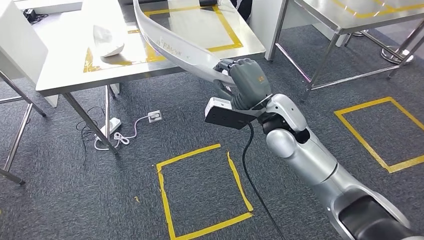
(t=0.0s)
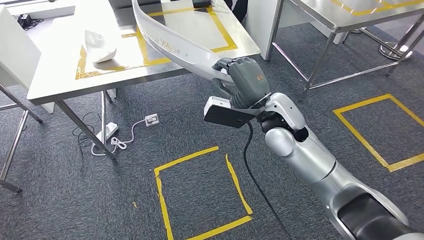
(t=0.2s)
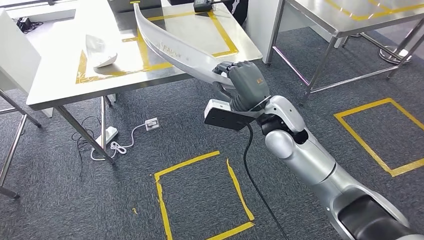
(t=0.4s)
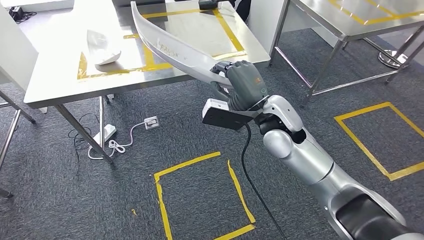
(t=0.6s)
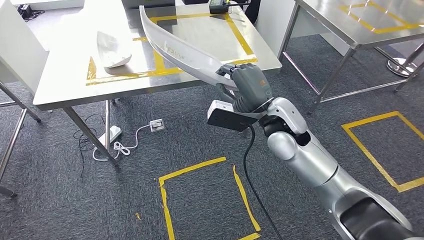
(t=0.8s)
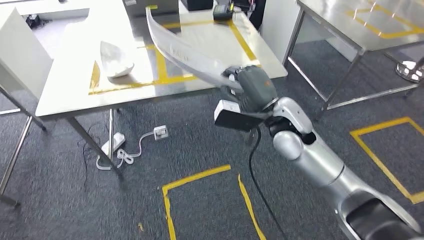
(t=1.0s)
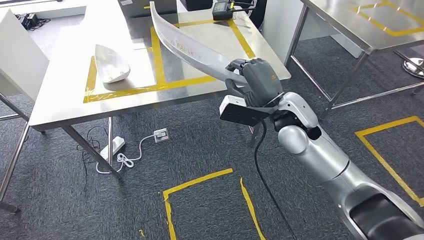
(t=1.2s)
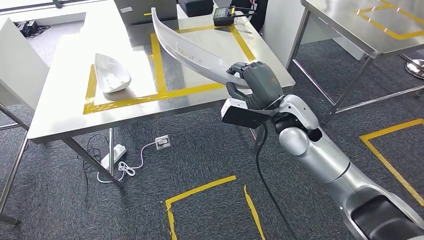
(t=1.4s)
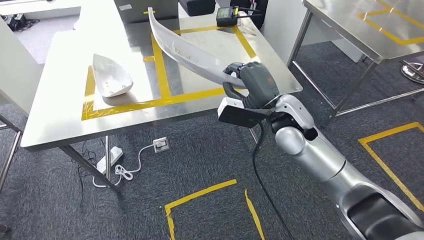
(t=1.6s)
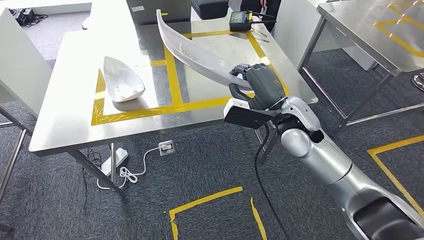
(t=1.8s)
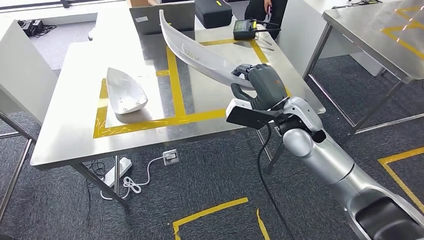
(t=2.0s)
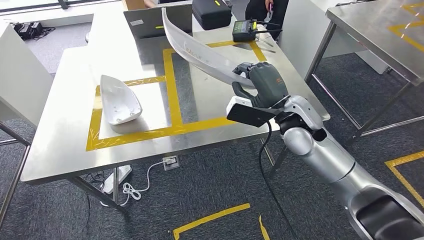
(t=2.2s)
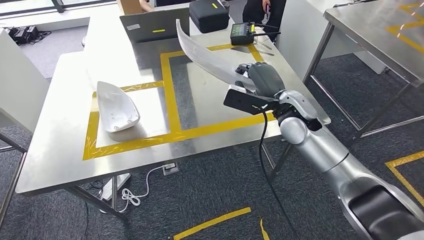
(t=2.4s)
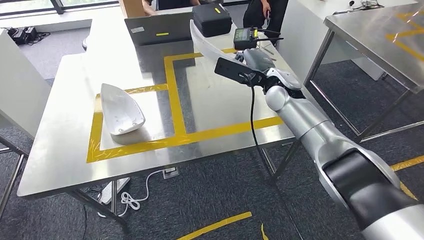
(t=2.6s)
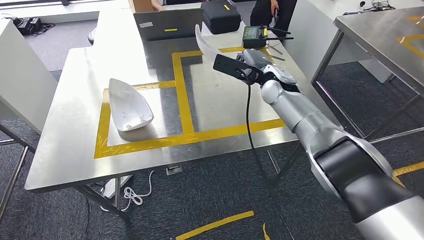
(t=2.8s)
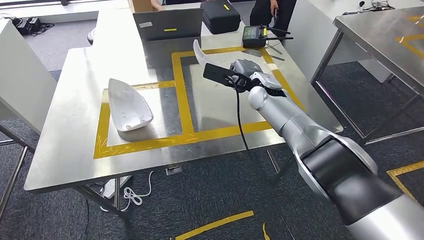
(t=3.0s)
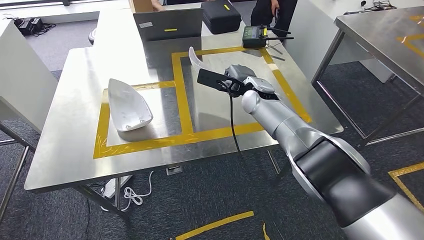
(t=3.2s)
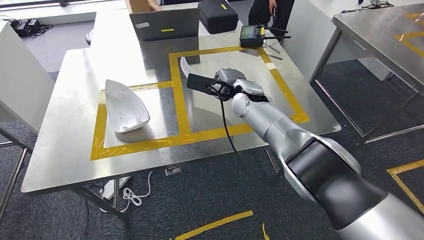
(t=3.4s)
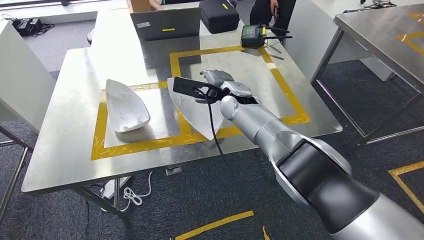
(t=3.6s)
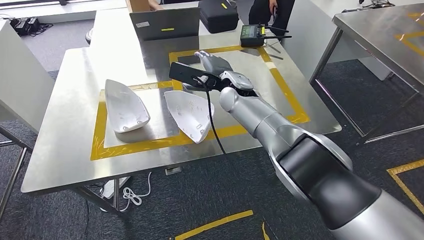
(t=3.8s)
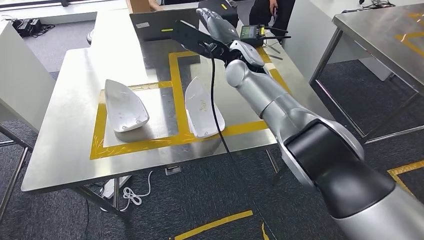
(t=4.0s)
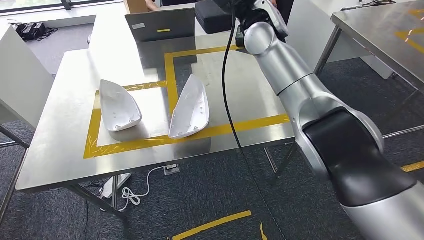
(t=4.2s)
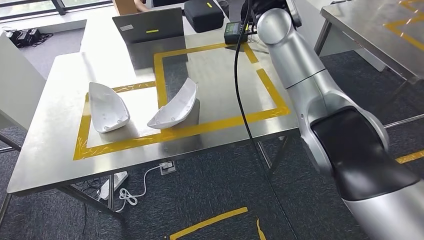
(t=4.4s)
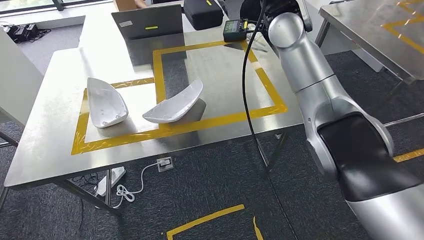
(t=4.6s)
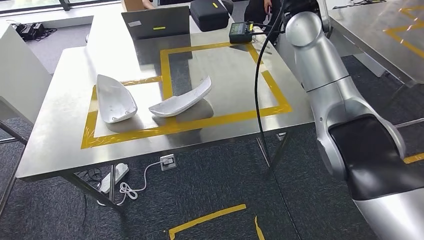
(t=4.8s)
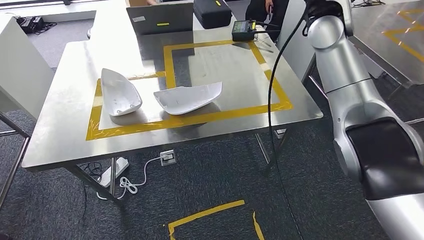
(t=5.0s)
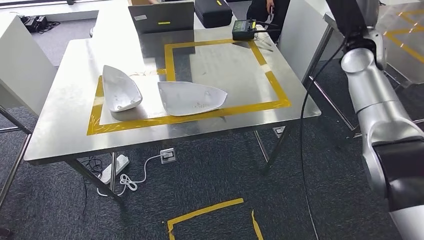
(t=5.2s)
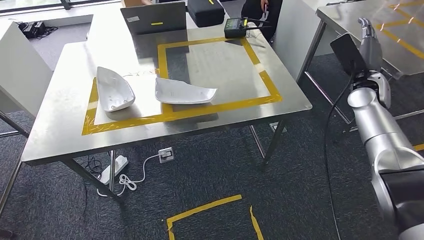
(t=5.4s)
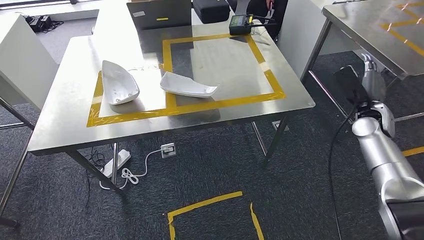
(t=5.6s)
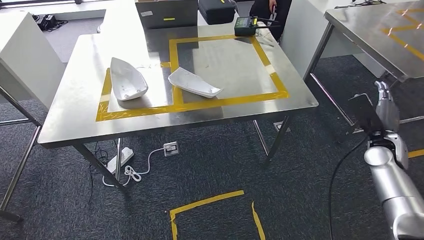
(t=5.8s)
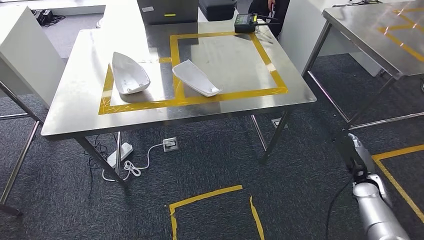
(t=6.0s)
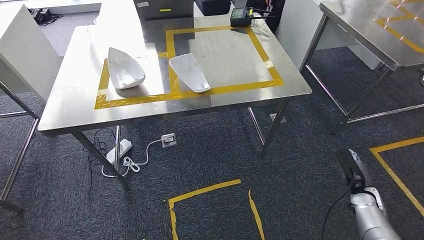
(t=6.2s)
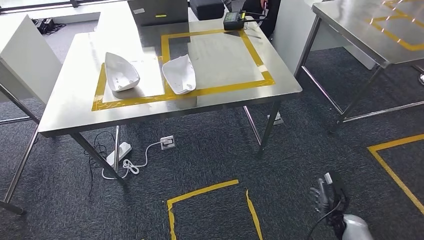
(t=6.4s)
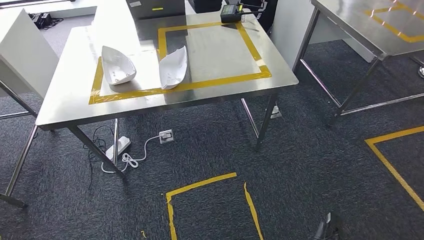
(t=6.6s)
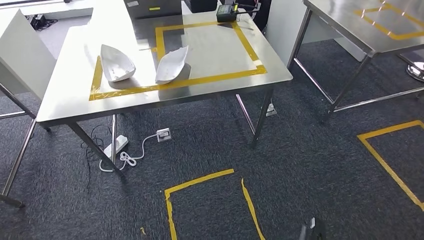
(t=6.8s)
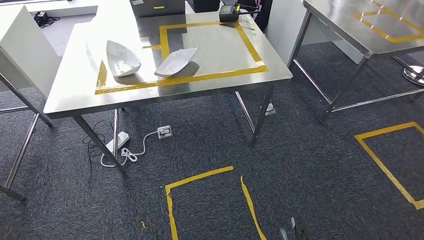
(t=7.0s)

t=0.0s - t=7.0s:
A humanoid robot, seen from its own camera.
Step, t=0.0s - t=4.8s: Insert the small component into the corresponding slot on the workbench.
Step, t=5.6s - t=7.0s: Return to the initial position at the workbench.
